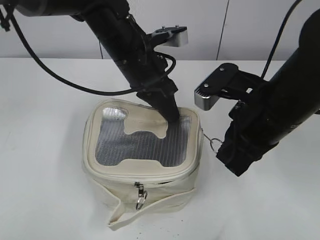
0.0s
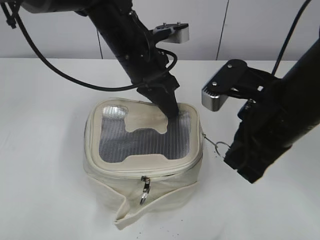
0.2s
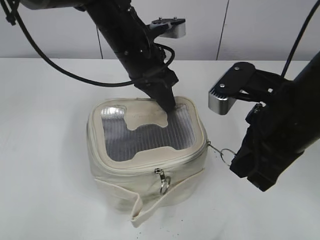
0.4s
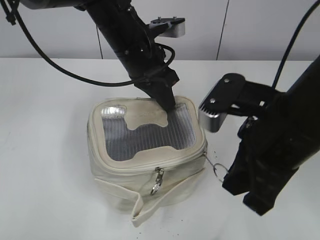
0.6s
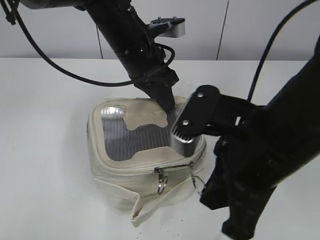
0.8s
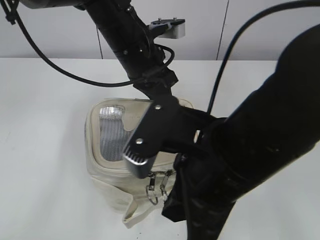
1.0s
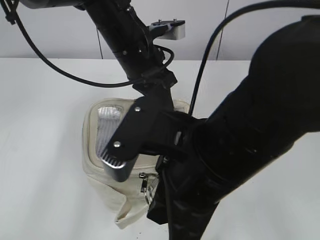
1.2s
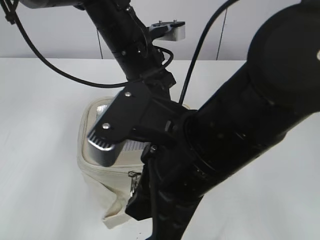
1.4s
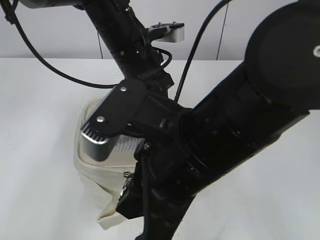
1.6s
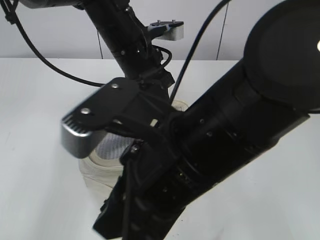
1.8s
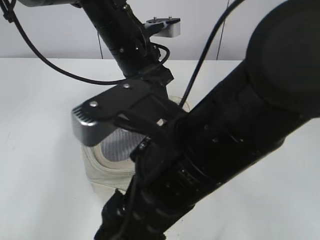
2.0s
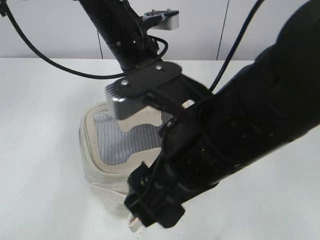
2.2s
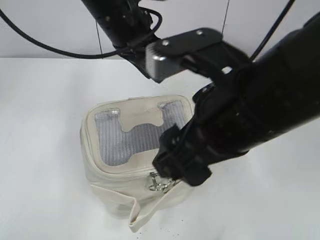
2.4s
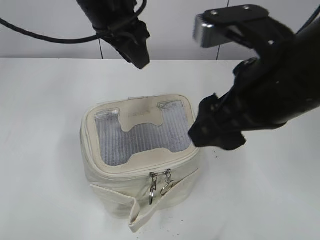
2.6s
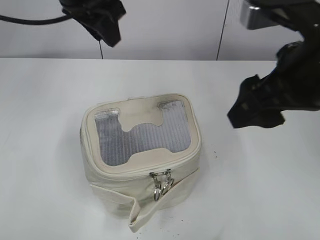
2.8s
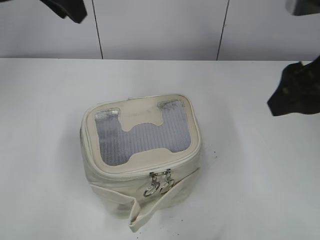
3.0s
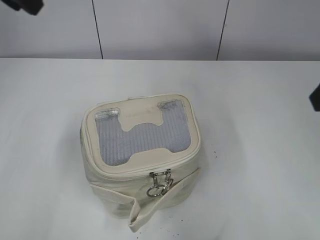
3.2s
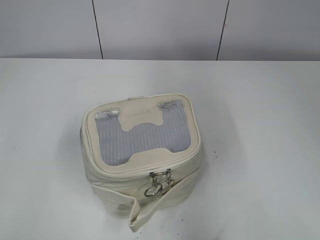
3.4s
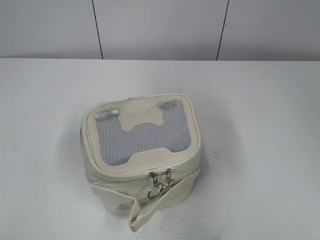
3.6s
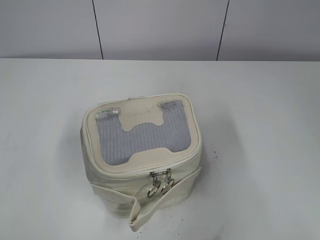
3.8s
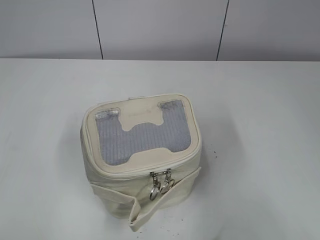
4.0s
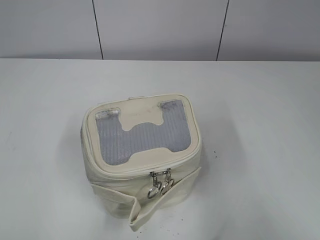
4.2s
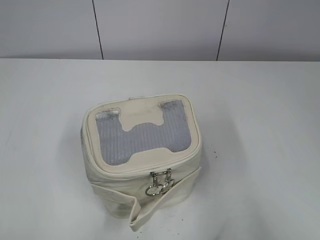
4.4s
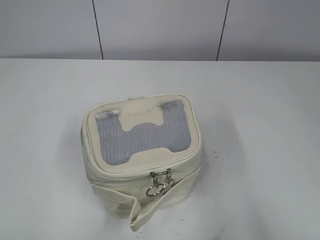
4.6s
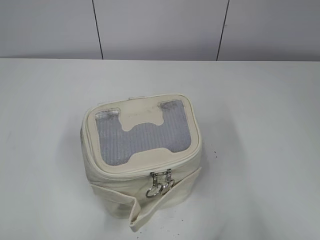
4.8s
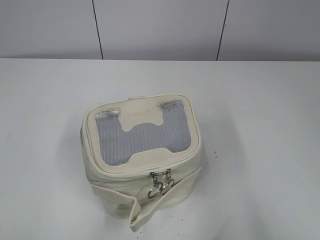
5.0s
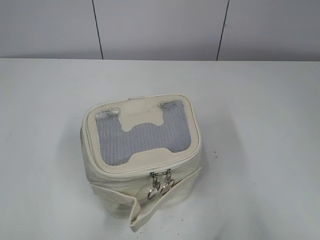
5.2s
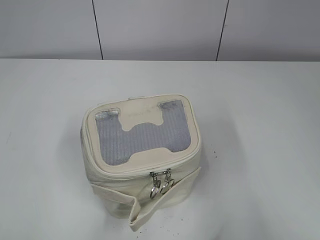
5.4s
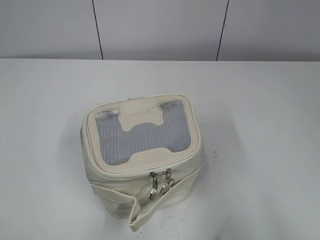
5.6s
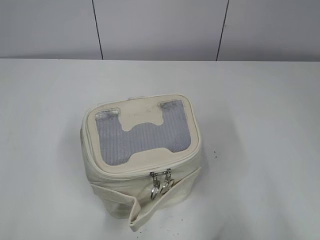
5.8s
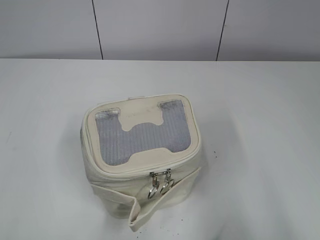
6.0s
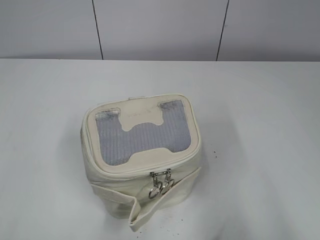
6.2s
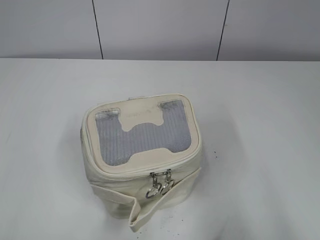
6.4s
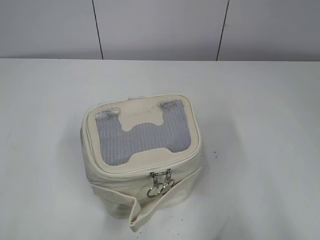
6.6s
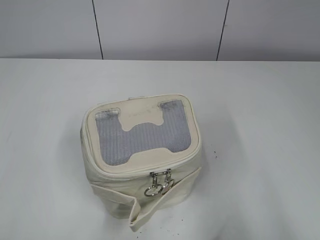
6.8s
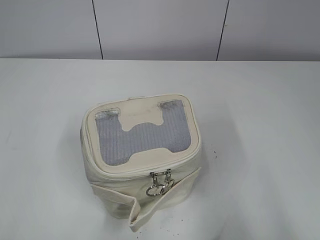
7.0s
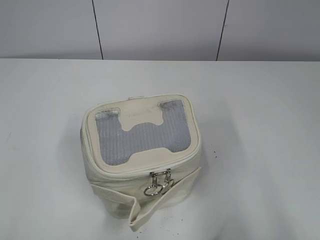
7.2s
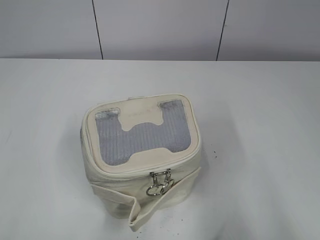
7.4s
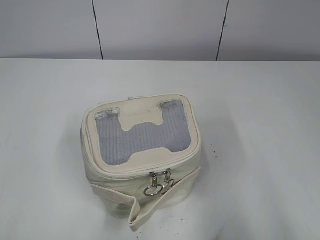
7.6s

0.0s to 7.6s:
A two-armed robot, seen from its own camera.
Step, 1.8s to 2.2s: Hold the bag with your left hand.
0.0s to 1.6s: The right gripper heads to the left and backward, covering roughly 15 cm.
1.6s to 3.0s: The left gripper heads upward and to the left, covering roughly 20 cm, and opens up. Meanwhile the right gripper moves to the right, upward and forward, about 20 cm, and opens its fingers.
3.0s to 4.6s: The left gripper heads backward and to the left, covering roughly 35 cm, while the right gripper moves backward and to the right, roughly 25 cm.
6.0s to 7.6s: Both grippers stay about where they are.

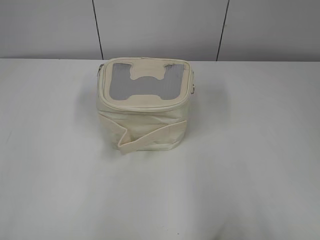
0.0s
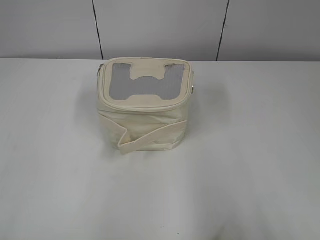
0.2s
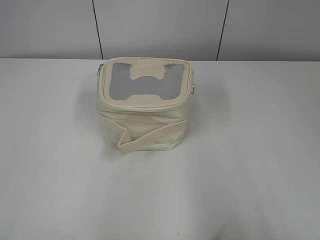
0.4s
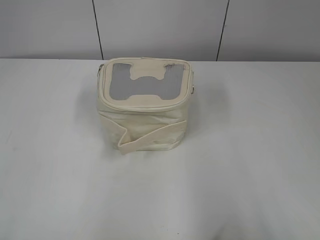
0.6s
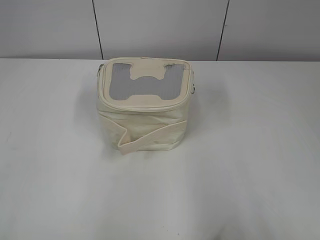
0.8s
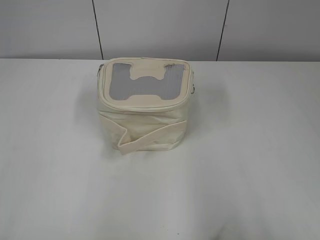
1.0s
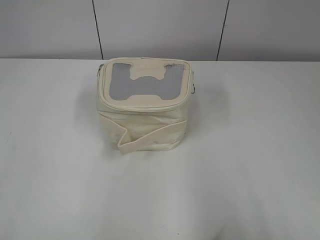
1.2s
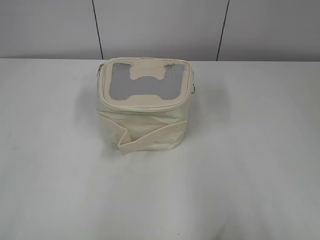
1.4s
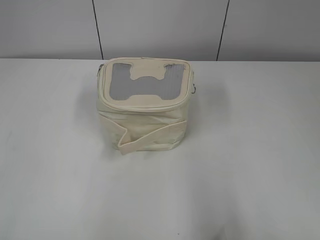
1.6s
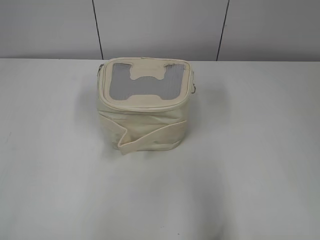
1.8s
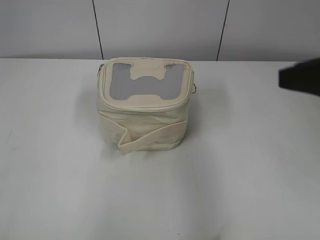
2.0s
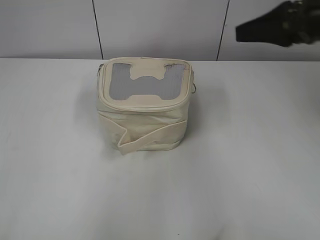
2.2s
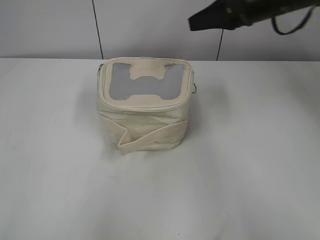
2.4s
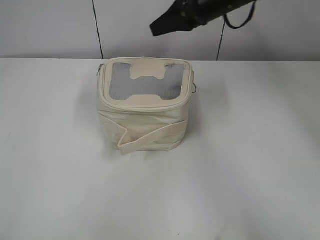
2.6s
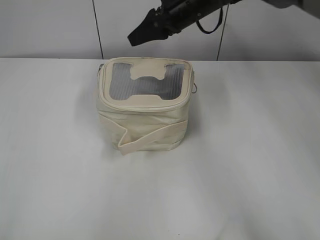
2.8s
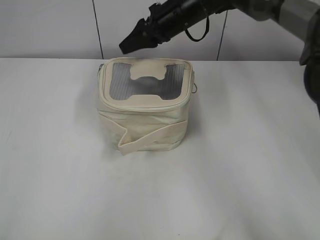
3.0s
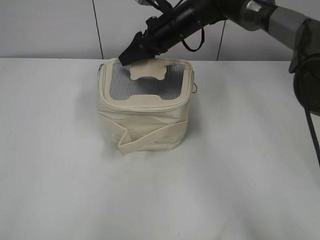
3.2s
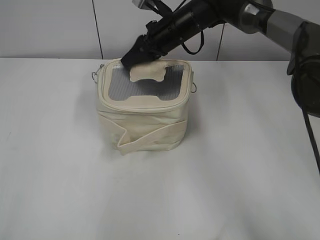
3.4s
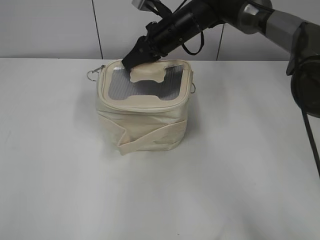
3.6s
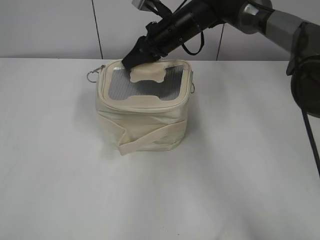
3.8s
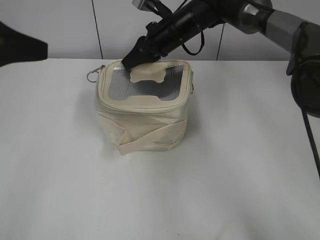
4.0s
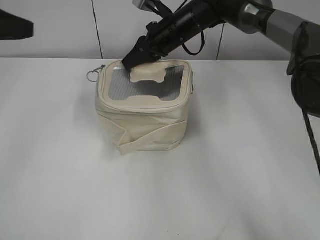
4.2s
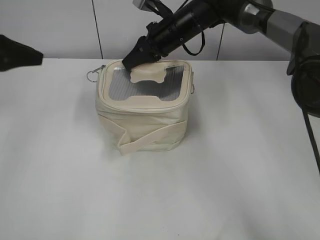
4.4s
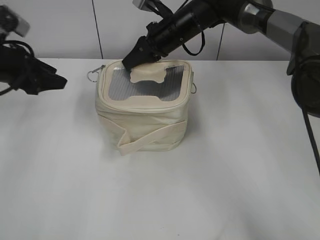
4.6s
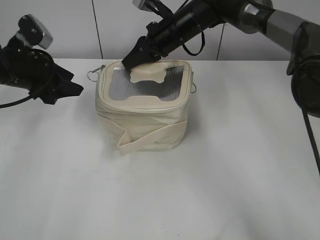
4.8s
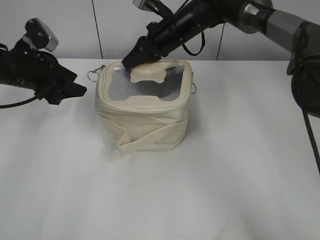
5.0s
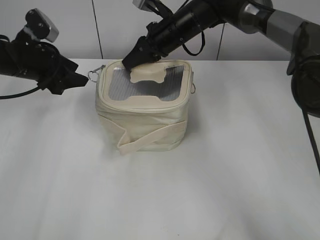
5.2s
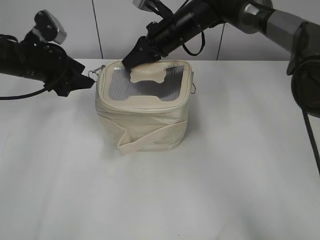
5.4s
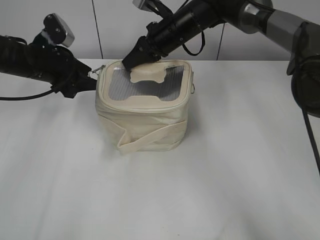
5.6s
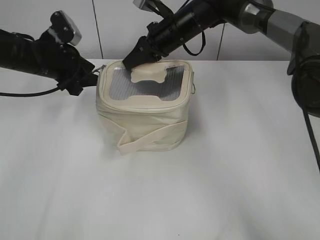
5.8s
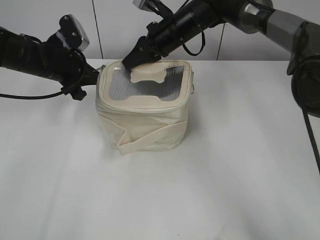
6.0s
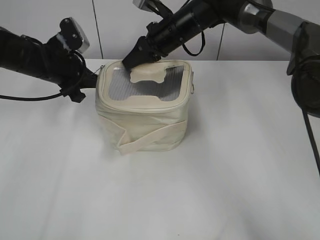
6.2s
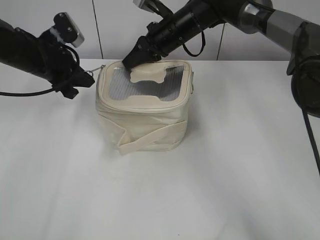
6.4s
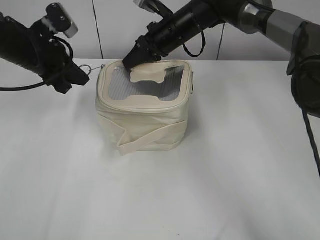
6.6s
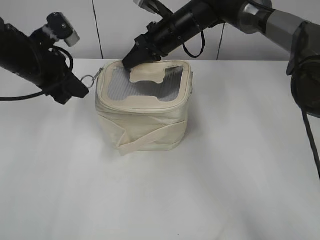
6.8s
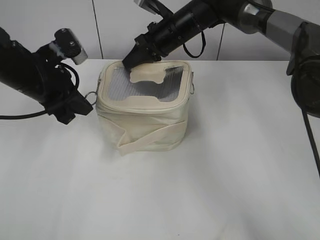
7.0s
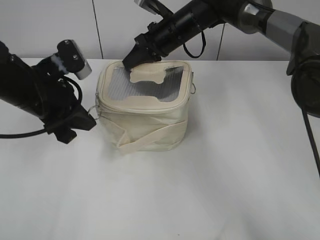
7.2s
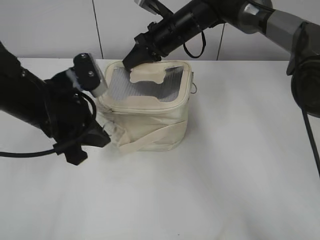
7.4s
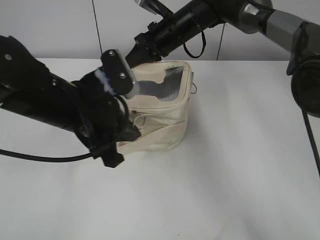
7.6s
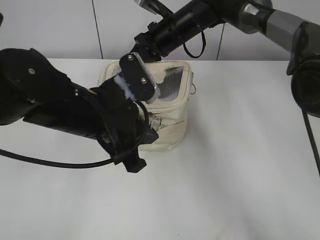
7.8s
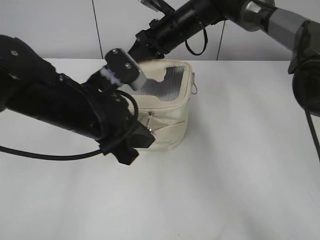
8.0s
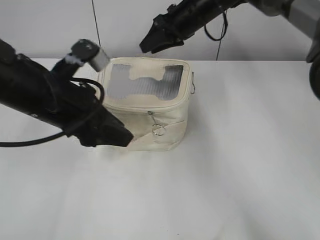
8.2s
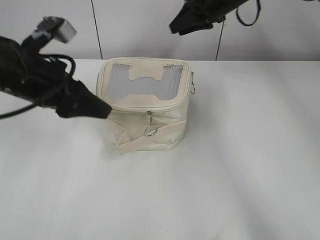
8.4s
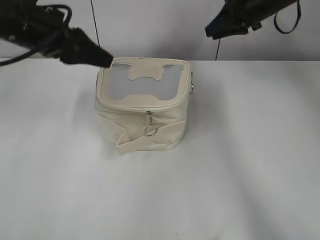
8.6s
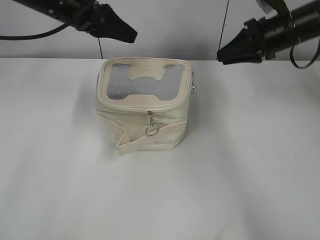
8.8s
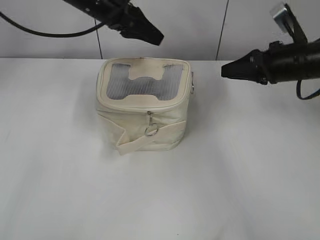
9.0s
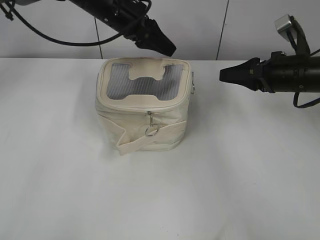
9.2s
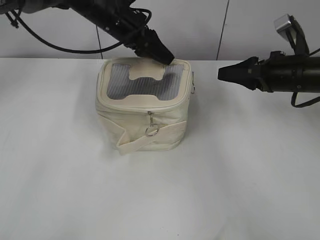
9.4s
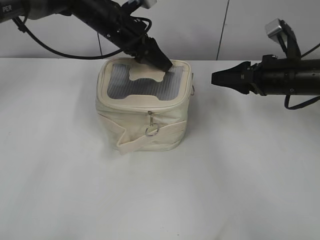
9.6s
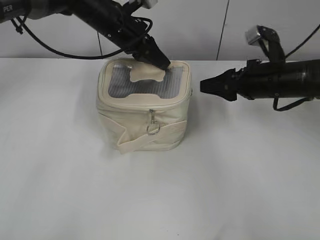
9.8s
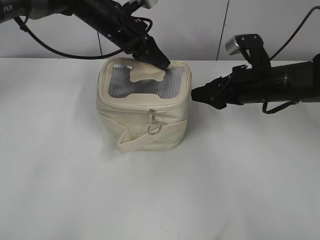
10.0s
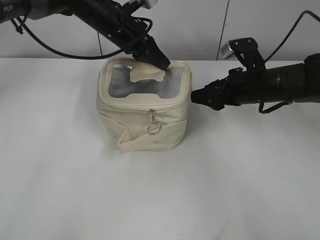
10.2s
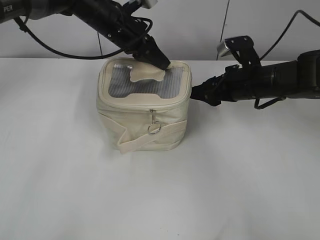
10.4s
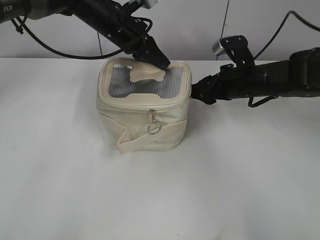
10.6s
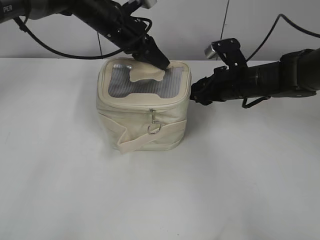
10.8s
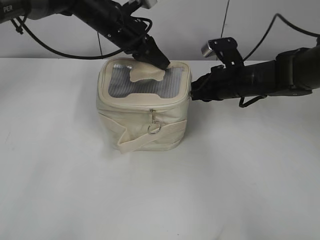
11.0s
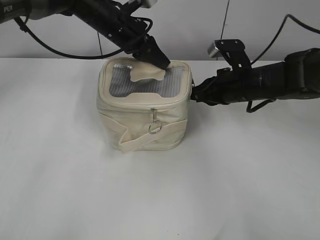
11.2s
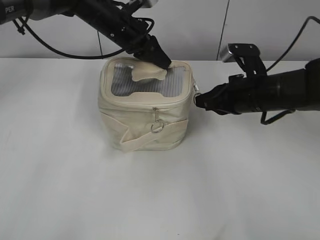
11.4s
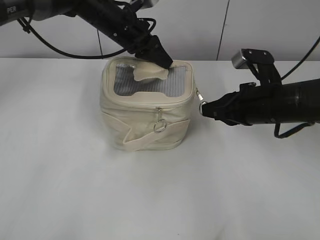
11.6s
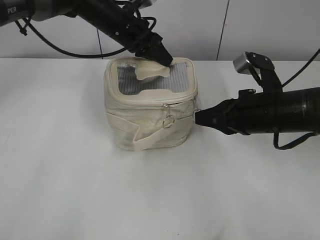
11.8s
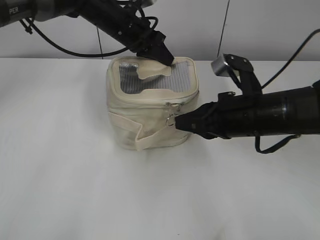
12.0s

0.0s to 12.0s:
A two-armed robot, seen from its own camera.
Step, 0.0s to 7.8s: Zip up the bag with your left hand.
1.6s to 3.0s: The right gripper moves forward and to the left, approximately 50 cm.
3.0s to 4.4s: The left gripper travels forward by some 35 cm; the right gripper closes its fingers.
4.4s to 6.0s: The left gripper travels to the right, downward and forward by roughly 15 cm.
6.0s to 7.6s: The left gripper goes roughly 15 cm backward and to the right.
7.6s to 9.0s: The left gripper heads forward and upward, covering about 20 cm, and opens its fingers. The right gripper shifts some 25 cm to the right and backward.
9.0s to 10.4s: The right gripper is displaced downward and to the left by some 10 cm, and opens its fingers; the left gripper is displaced downward by some 5 cm, and closes its fingers.
10.4s to 12.0s: The right gripper heads backward, covering approximately 10 cm, and closes.

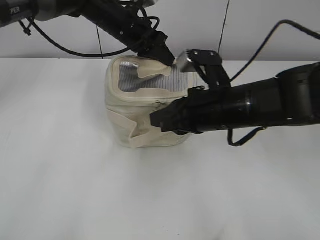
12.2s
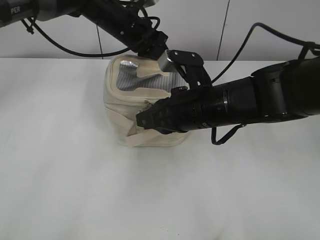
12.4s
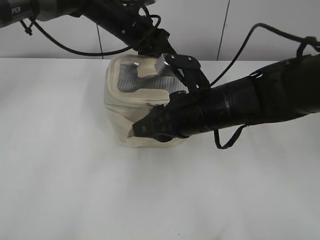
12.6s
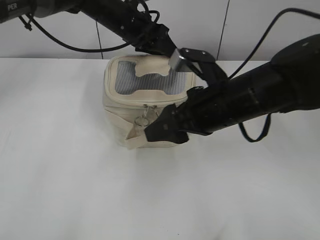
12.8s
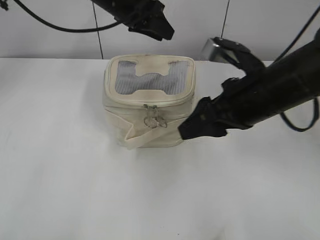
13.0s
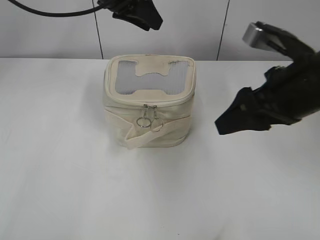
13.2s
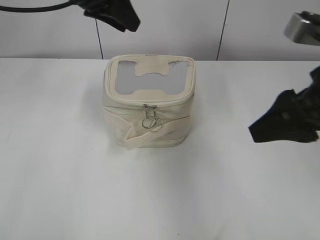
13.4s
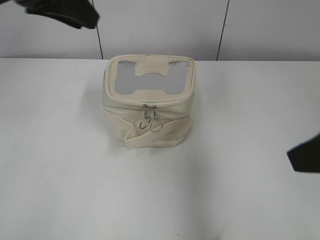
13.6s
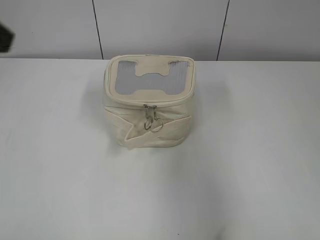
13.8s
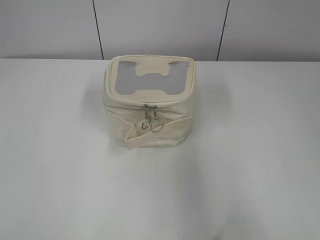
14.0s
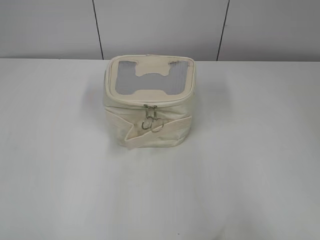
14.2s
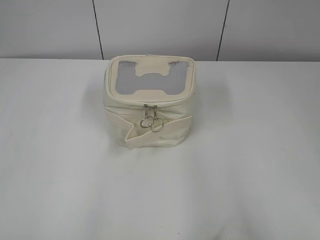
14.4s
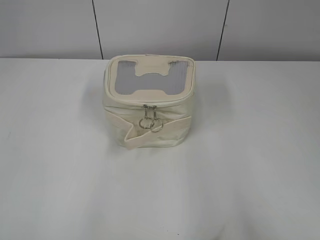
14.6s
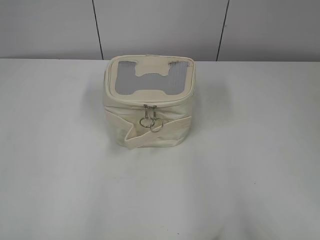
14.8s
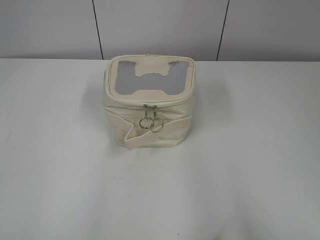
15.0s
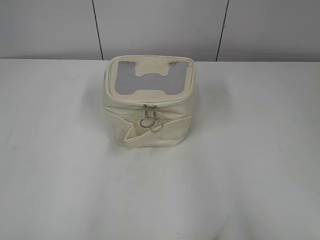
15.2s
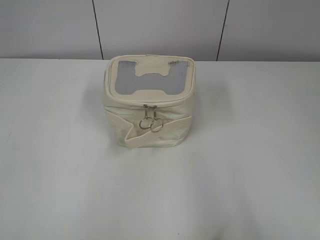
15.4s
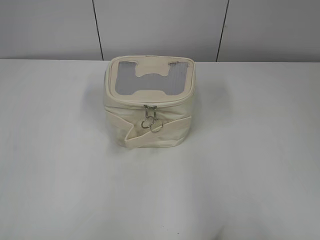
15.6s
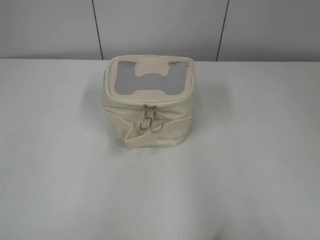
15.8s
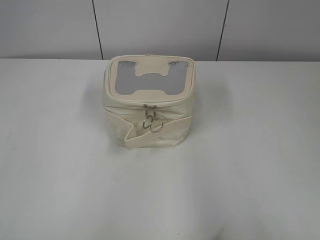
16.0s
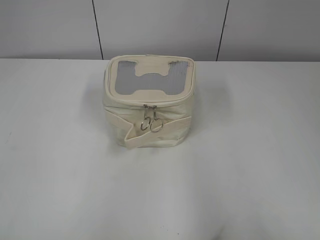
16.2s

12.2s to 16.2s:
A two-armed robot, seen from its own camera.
12.2s to 13.6s: The left gripper is displaced backward, upward and to the left by about 25 cm, and opens its fingers. The right gripper travels upward, to the right and backward by roughly 20 cm, and opens.
13.6s to 14.8s: The right gripper moves backward and to the right, roughly 20 cm; the left gripper moves backward and to the left, about 35 cm.
